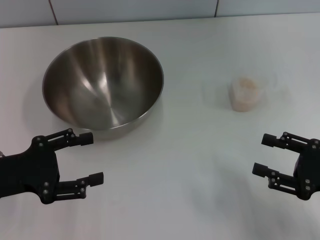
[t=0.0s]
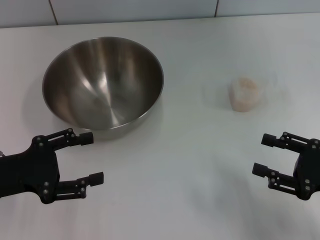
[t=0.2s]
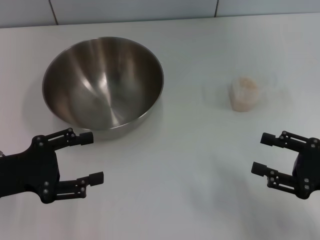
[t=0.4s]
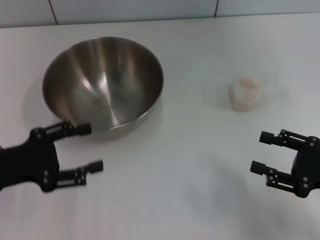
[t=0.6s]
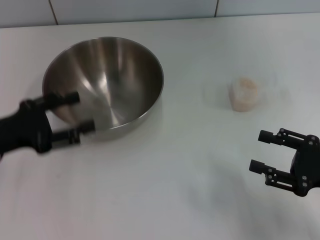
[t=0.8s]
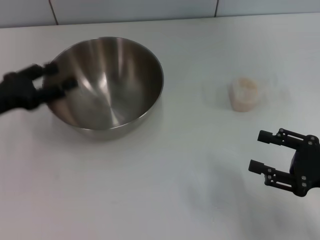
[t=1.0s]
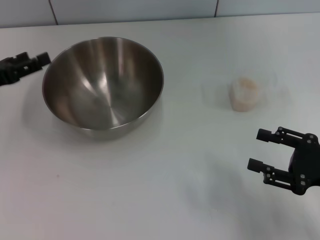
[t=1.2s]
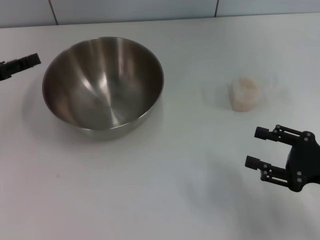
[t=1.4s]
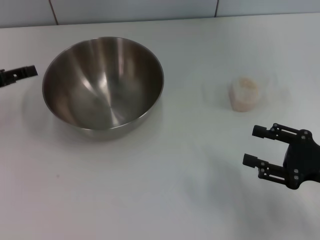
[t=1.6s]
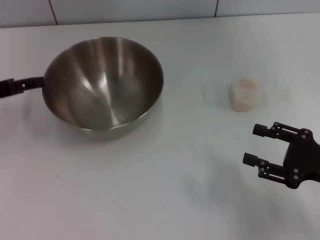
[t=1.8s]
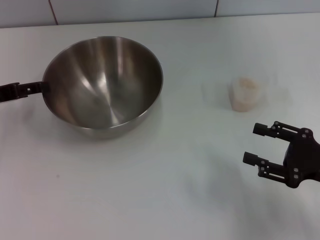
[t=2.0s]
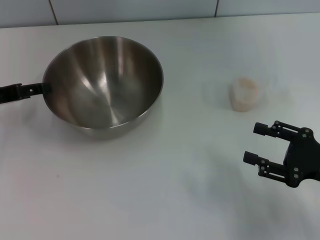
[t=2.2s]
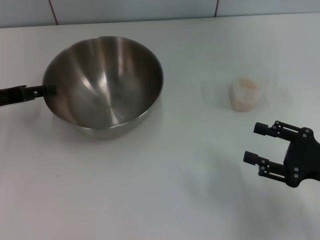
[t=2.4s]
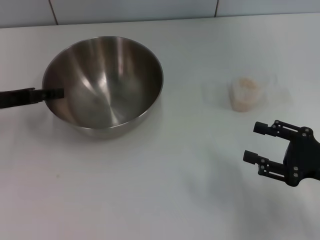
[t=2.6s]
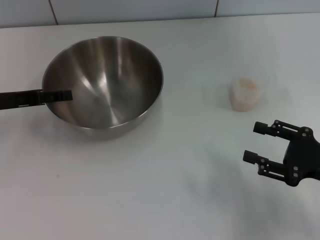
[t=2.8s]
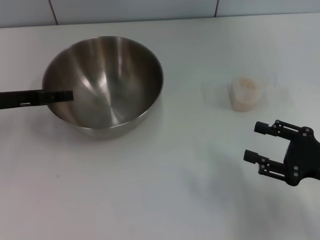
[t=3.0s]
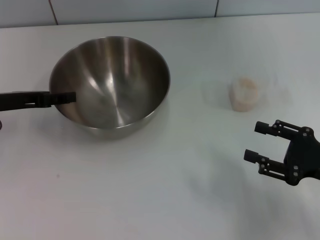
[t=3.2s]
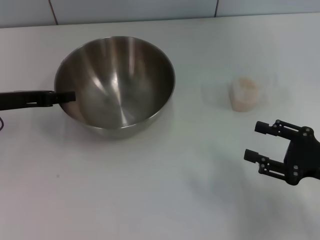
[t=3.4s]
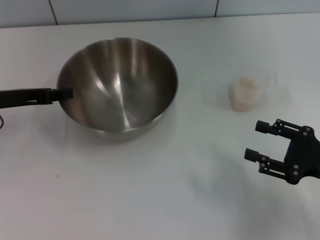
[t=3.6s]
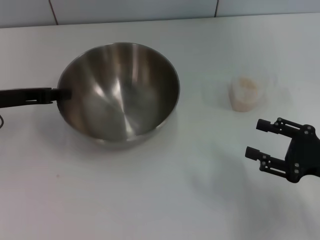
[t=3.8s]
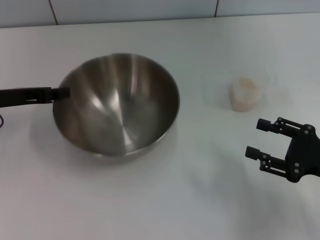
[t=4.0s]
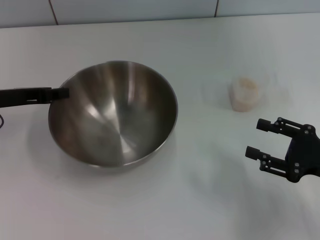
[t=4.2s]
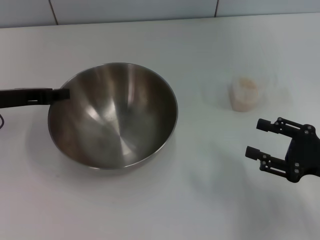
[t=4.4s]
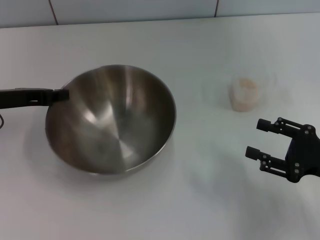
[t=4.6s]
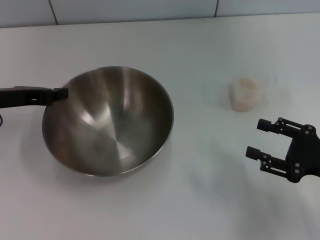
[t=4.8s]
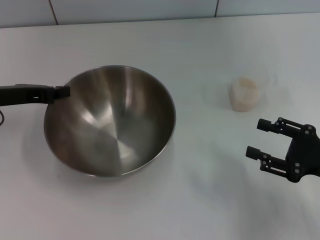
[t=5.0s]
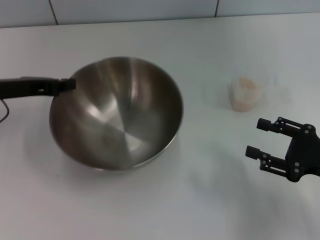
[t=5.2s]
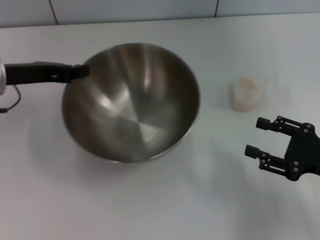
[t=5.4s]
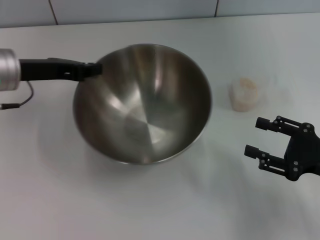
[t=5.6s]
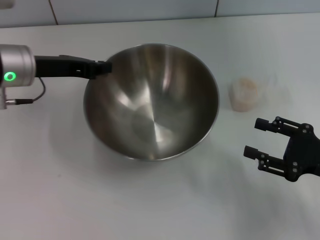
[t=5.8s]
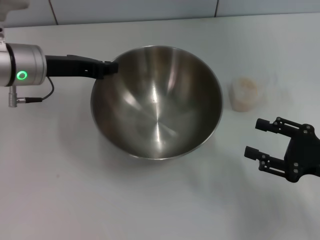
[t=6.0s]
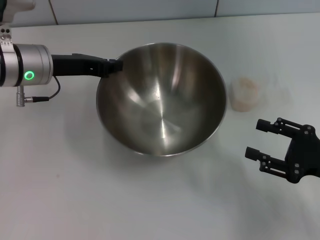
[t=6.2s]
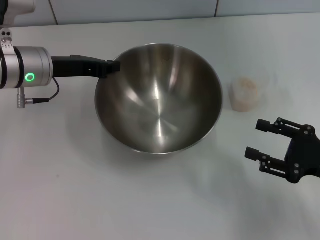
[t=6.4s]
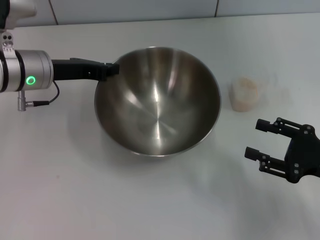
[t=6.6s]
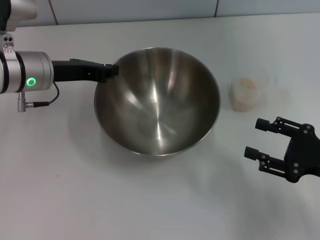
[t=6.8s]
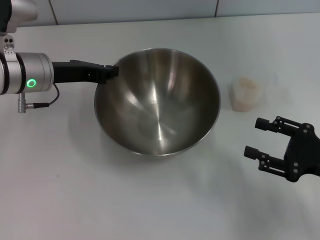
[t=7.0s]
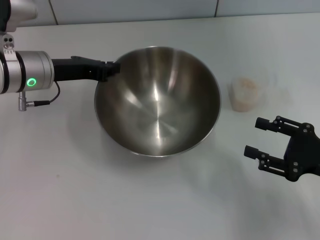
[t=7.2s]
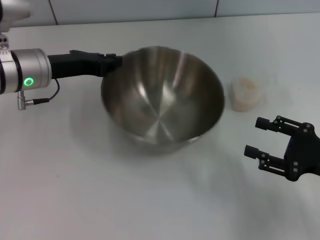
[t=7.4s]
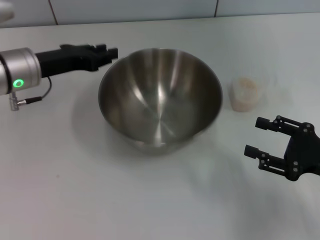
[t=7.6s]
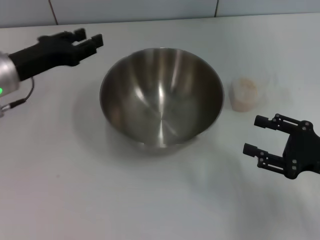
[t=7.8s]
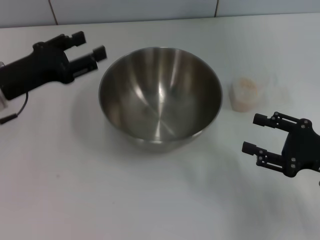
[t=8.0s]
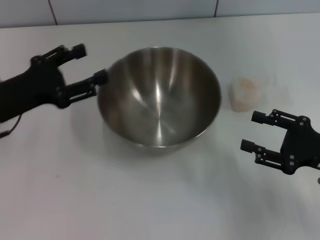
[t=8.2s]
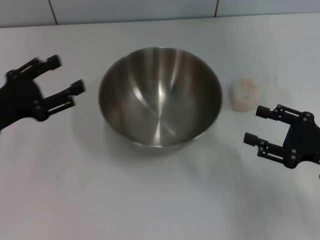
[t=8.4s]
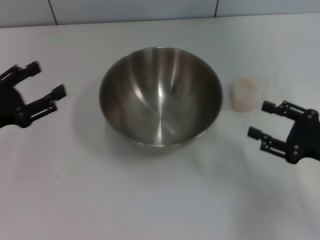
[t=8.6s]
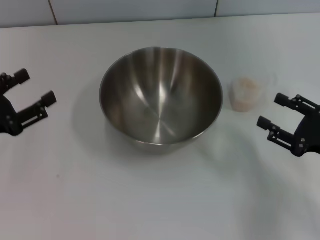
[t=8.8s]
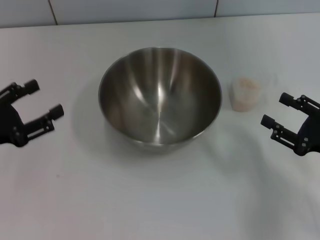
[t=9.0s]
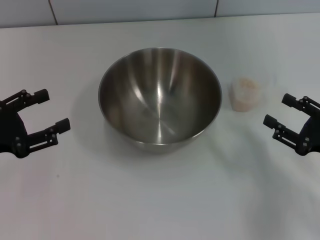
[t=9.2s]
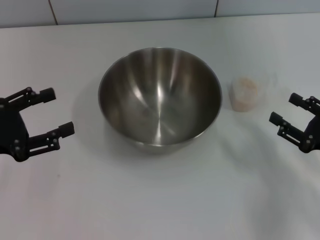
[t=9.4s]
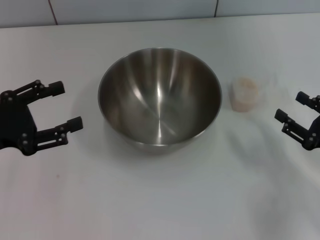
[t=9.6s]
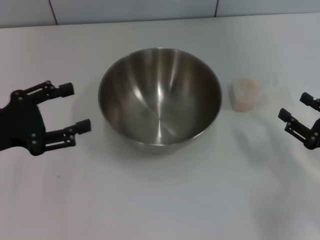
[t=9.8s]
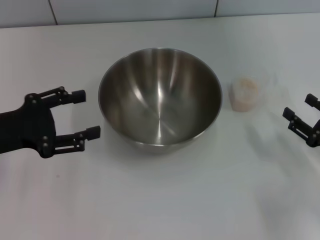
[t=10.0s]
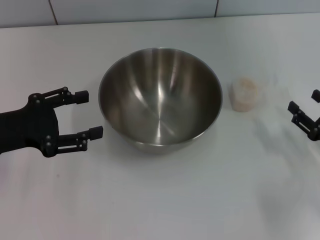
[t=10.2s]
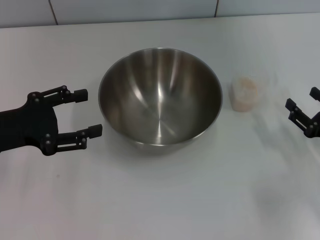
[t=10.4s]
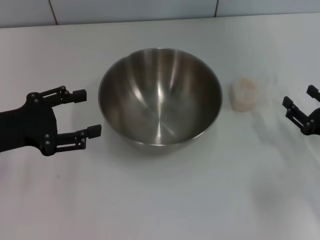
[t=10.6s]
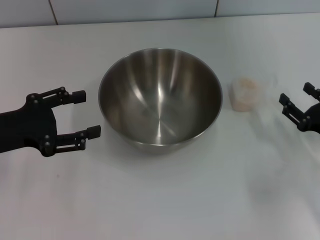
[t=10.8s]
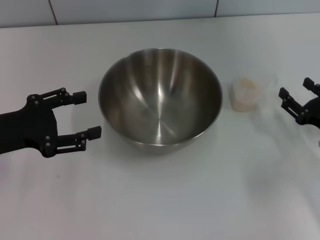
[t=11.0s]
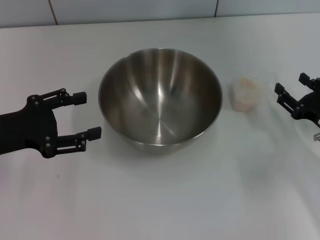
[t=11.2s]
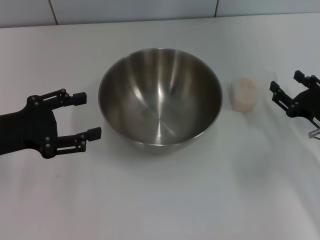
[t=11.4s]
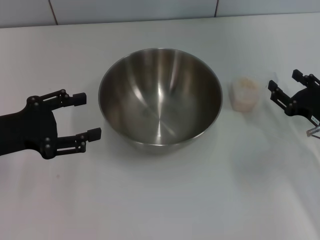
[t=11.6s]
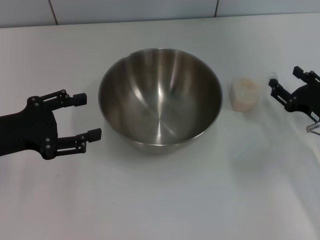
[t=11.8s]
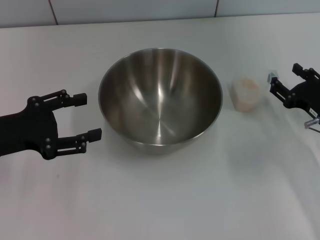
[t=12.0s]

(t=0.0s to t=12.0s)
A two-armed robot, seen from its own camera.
Task of the whole recording: Place the bowl in the middle of the table with one hand and pour the rice from the grain cup into it with the other hand.
Step, t=0.0s - t=5.0s: Pick up the bowl with the left gripper.
Step, t=5.2s - t=7.8s: Place the bowl in the center of view with the left gripper.
t=0.0s - t=1.6s: The left gripper is displaced forward by about 10 cm.
t=1.6s - t=3.0s: There are only small adjustments of the grippers.
t=3.0s - t=4.4s: The left gripper closes.
t=4.4s - t=6.0s: The left gripper is displaced to the right by roughly 10 cm.
t=6.0s - t=7.6s: The grippers make only small movements.
t=7.6s - t=9.0s: The left gripper shifts some 15 cm backward and to the left, and opens up.
t=9.0s - t=10.4s: The left gripper changes place by roughly 5 cm.
t=10.4s - t=12.0s: The right gripper travels forward by some 5 cm.

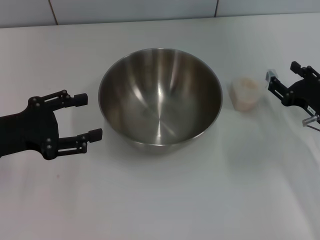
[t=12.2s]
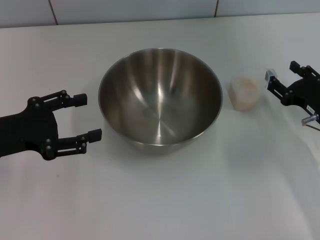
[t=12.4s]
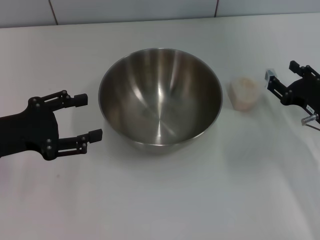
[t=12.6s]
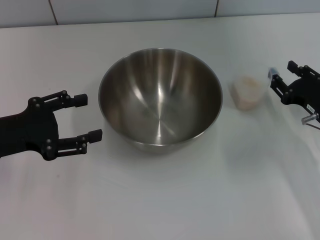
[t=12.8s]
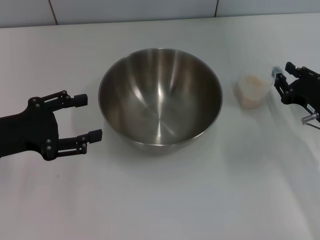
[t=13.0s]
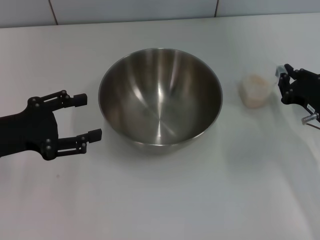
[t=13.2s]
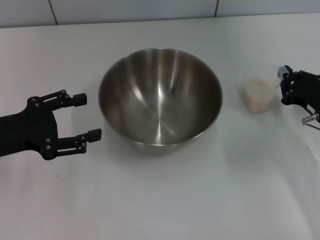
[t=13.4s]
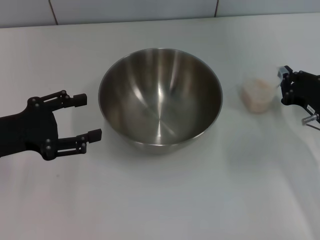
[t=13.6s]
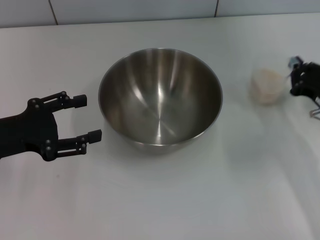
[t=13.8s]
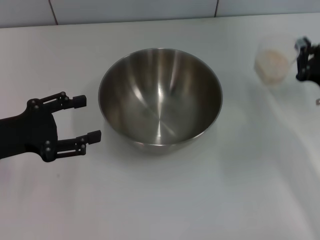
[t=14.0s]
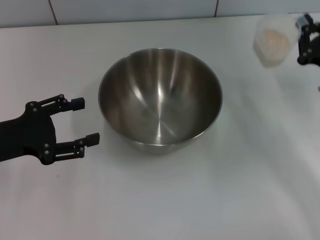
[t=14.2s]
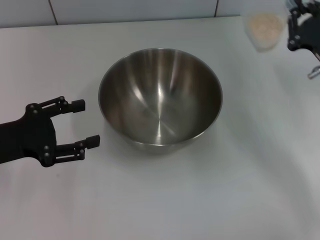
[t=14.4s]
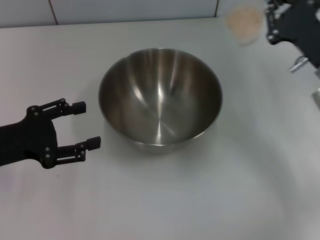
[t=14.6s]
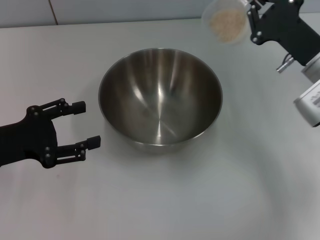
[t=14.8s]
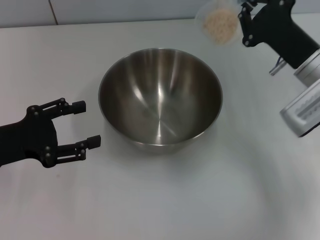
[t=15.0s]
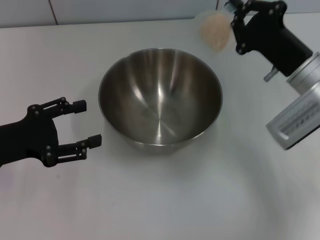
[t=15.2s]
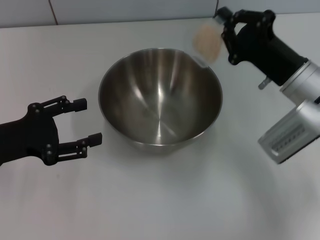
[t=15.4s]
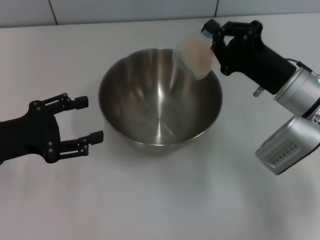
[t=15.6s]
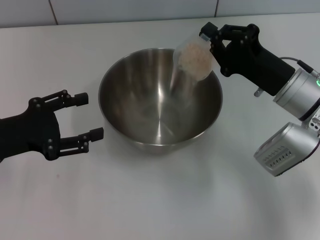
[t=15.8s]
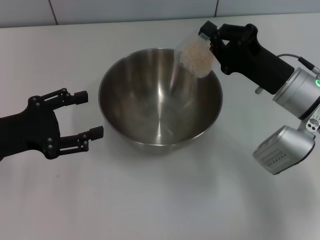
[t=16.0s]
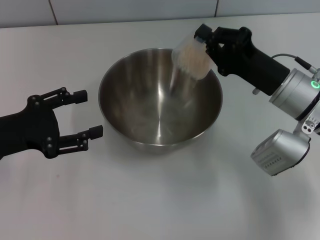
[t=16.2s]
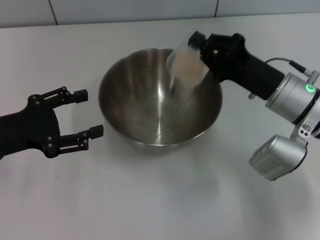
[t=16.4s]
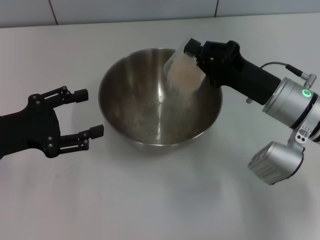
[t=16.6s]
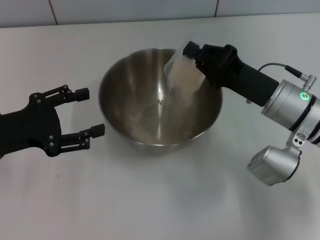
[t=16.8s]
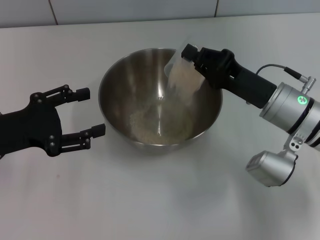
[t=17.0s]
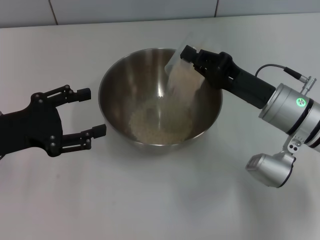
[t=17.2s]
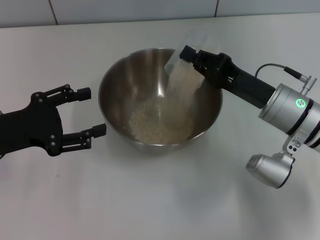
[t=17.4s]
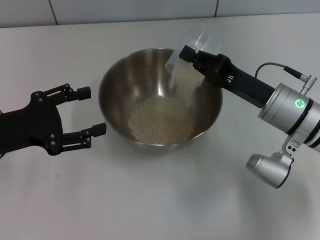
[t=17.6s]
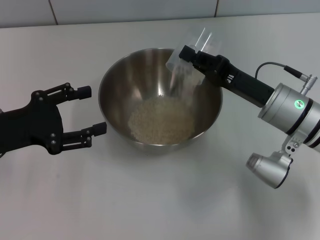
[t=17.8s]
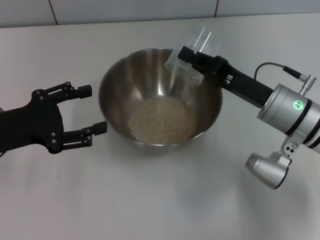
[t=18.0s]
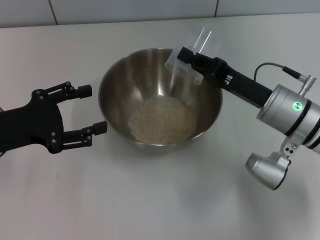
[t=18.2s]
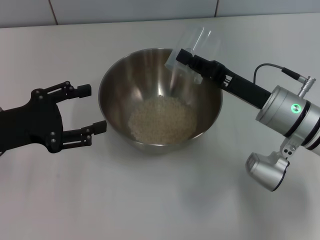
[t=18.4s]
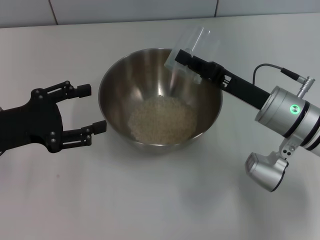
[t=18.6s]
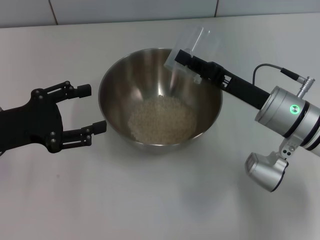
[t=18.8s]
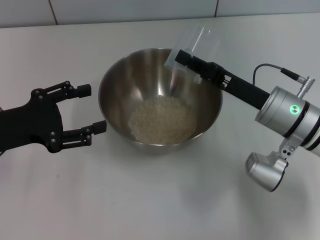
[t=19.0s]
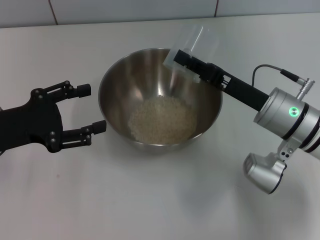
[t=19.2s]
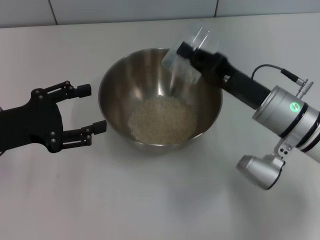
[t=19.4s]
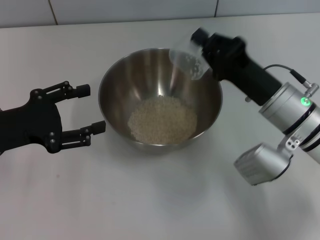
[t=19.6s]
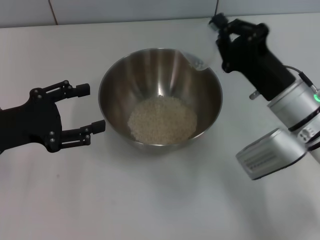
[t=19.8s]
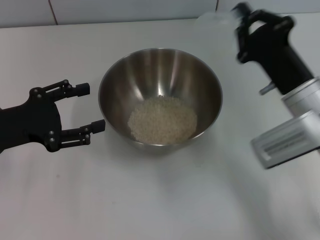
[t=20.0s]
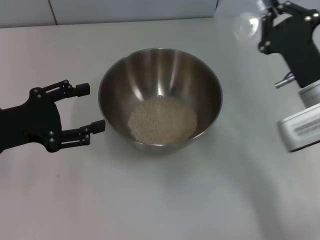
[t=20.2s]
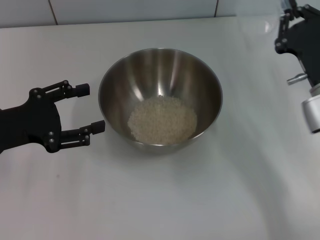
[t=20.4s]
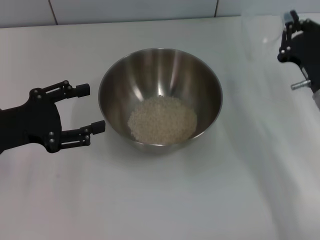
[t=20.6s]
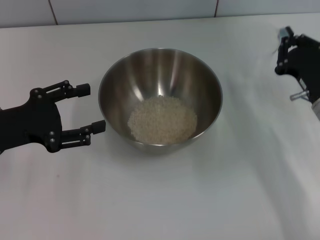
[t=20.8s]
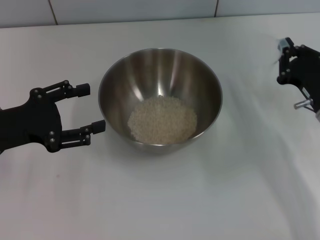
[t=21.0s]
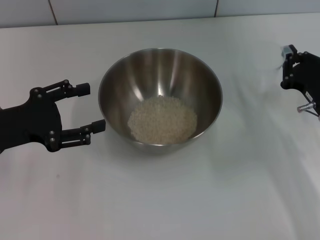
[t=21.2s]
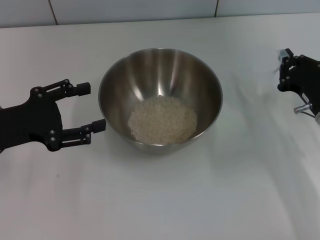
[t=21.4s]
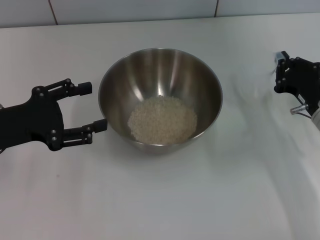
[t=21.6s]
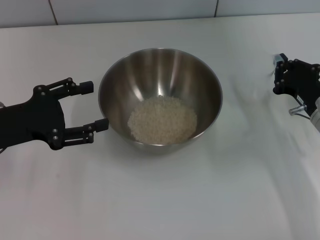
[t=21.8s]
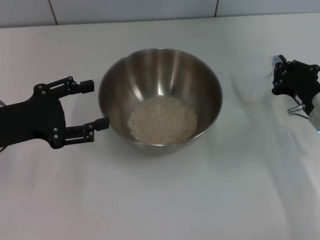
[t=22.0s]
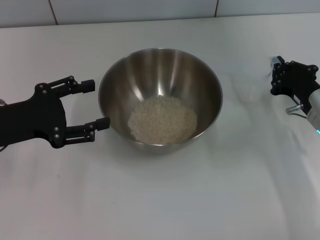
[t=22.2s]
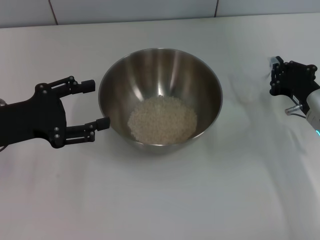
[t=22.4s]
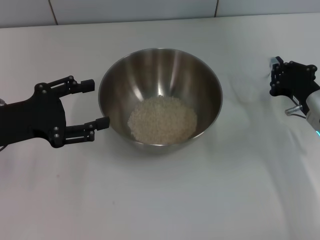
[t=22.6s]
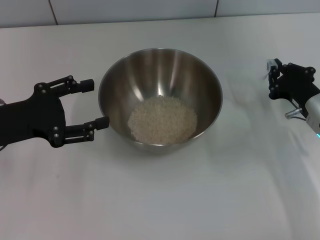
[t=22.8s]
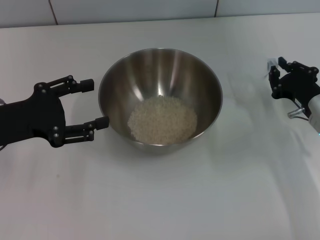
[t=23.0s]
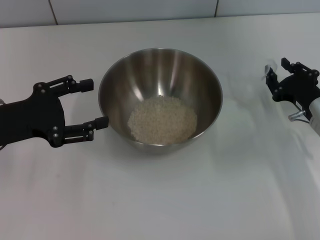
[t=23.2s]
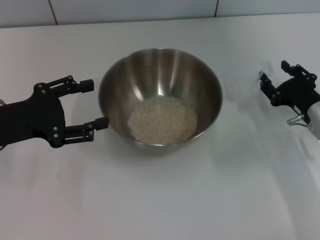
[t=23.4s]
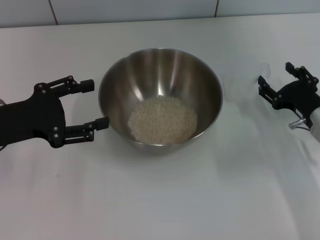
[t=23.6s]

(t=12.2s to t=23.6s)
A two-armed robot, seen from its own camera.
Task of the whole recording: Place the bowl in the middle of the table with one hand and pour the rice from the grain cup into it with the other hand.
Step, t=14.2s - t=20.0s: Pour the rice from the cup into the bowl with the right gripper.
t=12.2s - t=13.6s: The right gripper closes its fingers.
t=13.6s - t=15.0s: The right gripper moves upward and to the left, some 10 cm.
t=17.8s - t=19.4s: The grippers move only a little.
t=19.4s - t=20.8s: The right gripper heads to the right, covering roughly 10 cm.
t=20.8s - t=22.2s: The grippers make only small movements.
t=22.2s - t=23.6s: The right gripper opens up.
